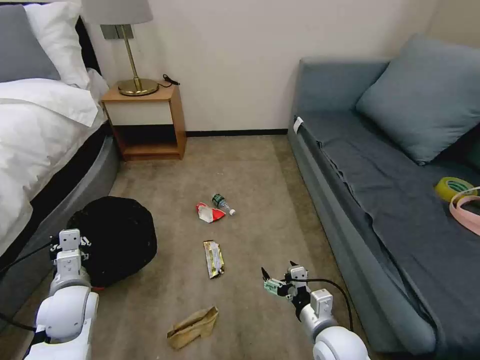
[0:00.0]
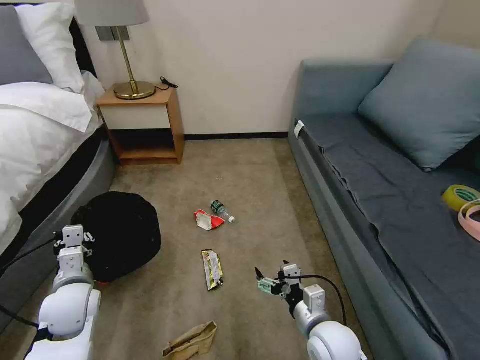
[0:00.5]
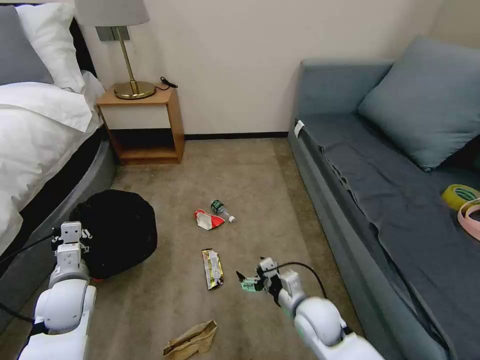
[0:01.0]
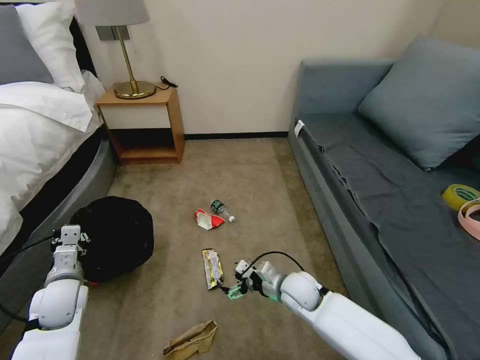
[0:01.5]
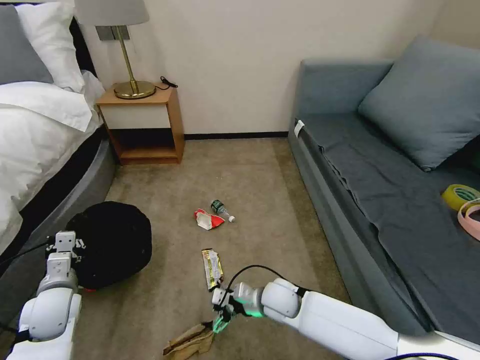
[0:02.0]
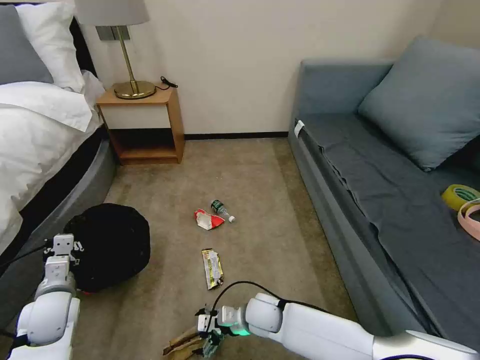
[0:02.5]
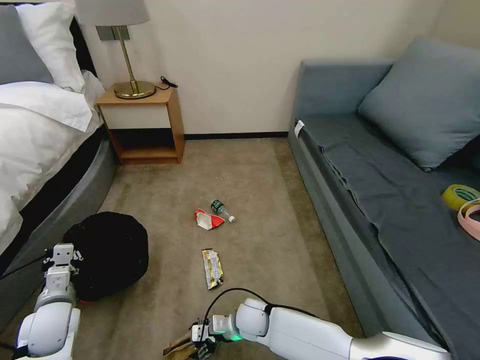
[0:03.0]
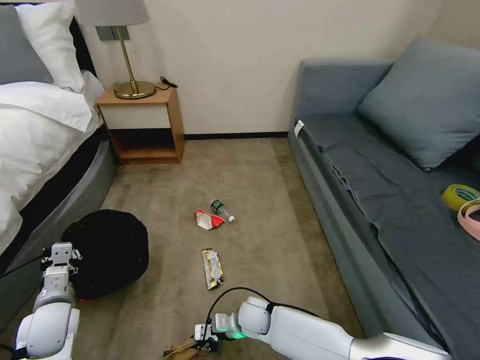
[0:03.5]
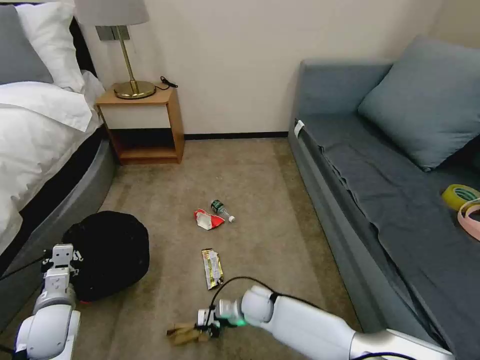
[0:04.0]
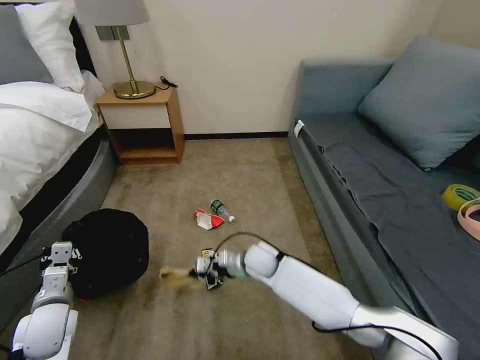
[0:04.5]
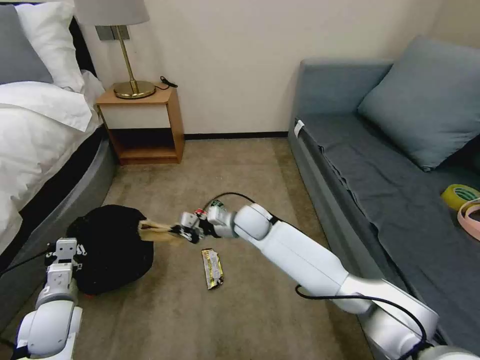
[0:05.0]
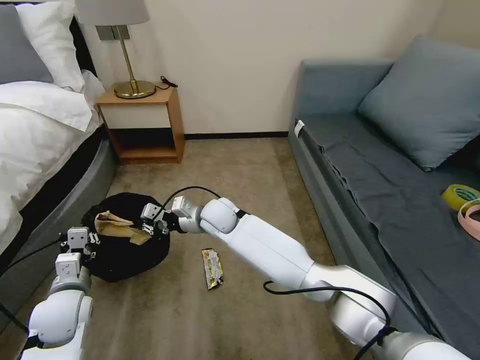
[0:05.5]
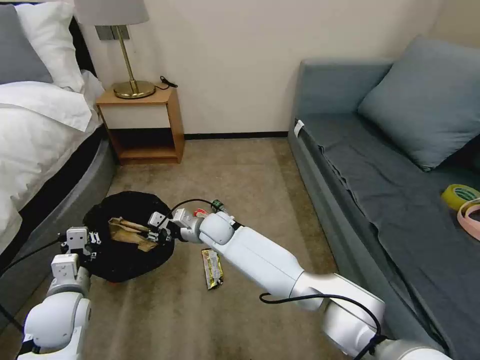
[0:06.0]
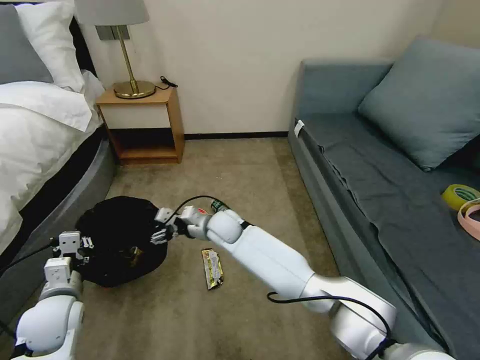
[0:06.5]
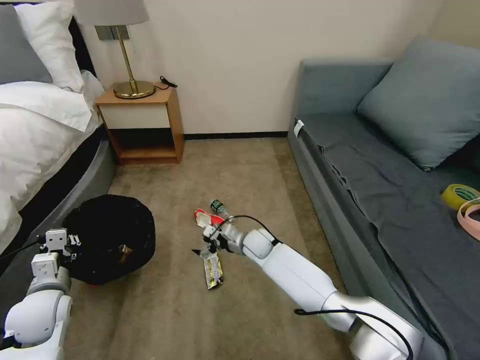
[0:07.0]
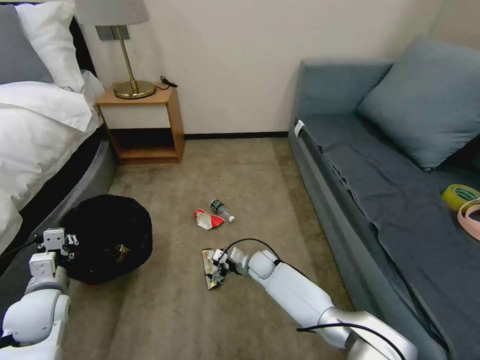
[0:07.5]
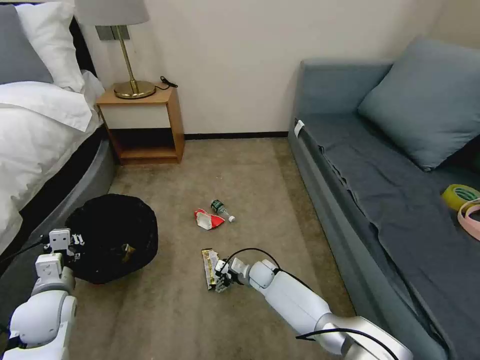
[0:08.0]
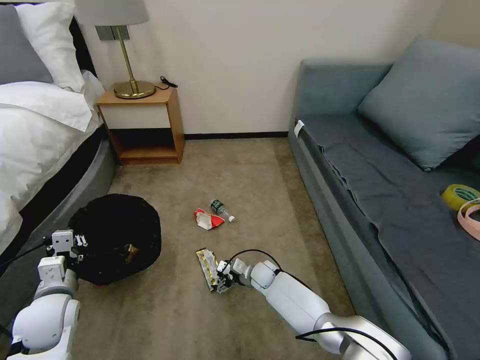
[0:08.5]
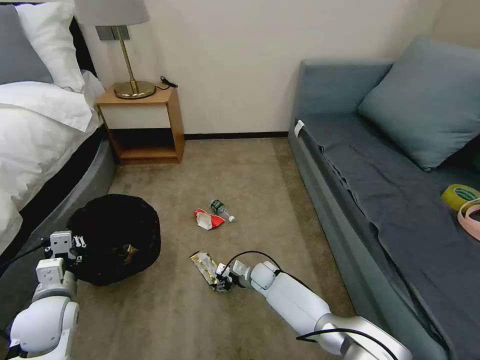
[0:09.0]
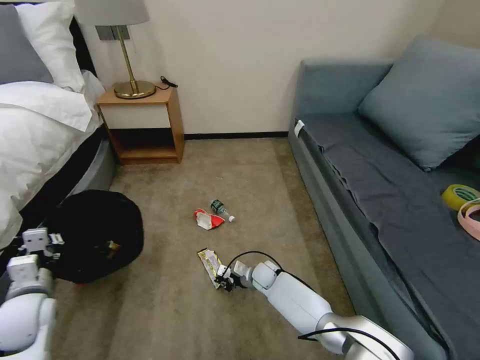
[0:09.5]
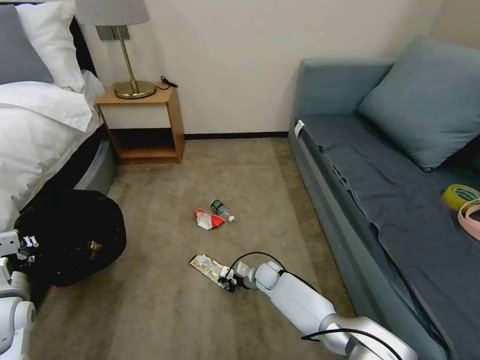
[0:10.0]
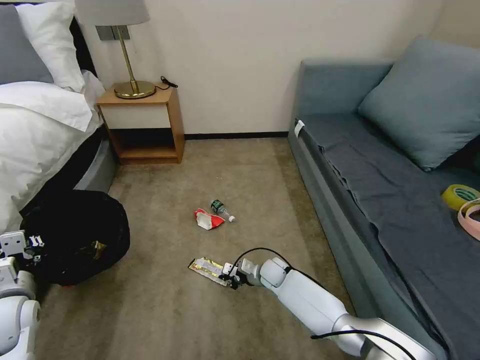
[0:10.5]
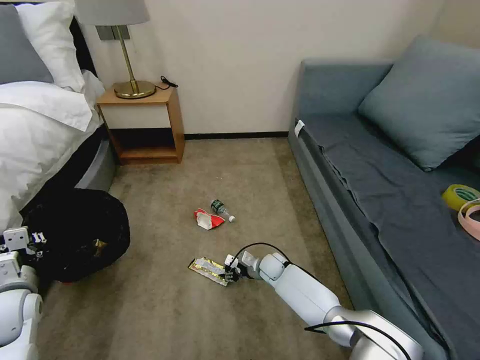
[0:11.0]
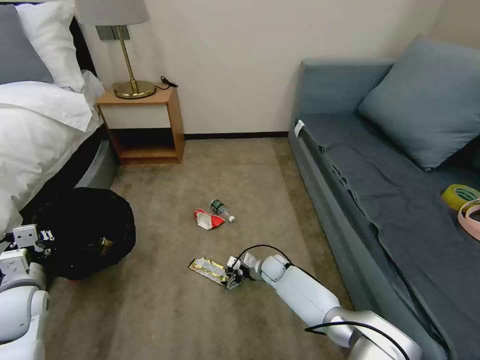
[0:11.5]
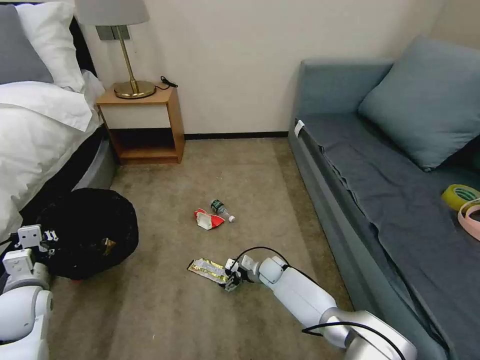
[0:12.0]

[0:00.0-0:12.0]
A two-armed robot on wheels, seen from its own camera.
Task of the whole recording: Pick up the trash bin, then pick up the garbage on the floor and place it into the trash bin.
0:00.0 to 0:02.0: The left gripper moves roughly 5 cm; the right gripper is displaced forward, to the left and downward by approximately 15 cm.
0:02.0 to 0:04.0: The right gripper travels downward by approximately 5 cm, and closes its fingers.
0:04.0 to 0:06.0: The left gripper moves approximately 5 cm; the right gripper shifts roughly 25 cm upward, forward and to the left.
0:06.0 to 0:08.0: The right gripper goes some 25 cm downward and to the right, and opens.
0:08.0 to 0:10.0: The left gripper moves to the left, some 5 cm; the right gripper closes its fingers.
0:10.0 to 0:12.0: The right gripper opens.

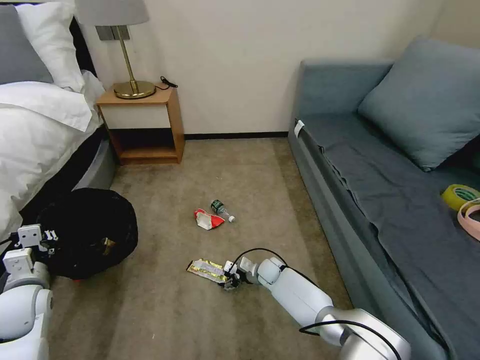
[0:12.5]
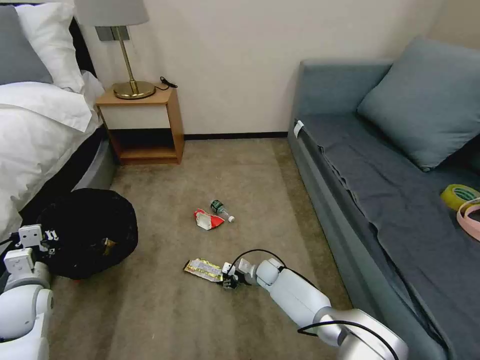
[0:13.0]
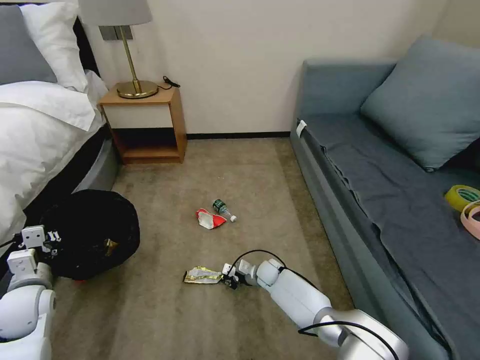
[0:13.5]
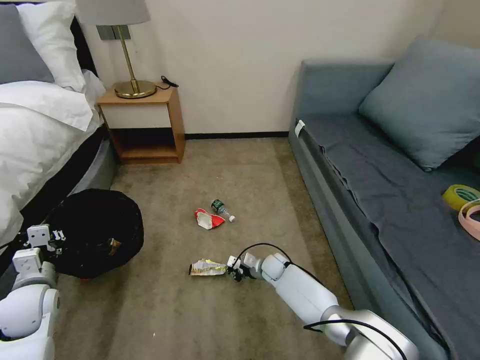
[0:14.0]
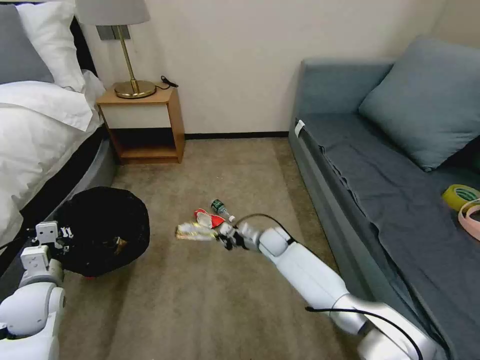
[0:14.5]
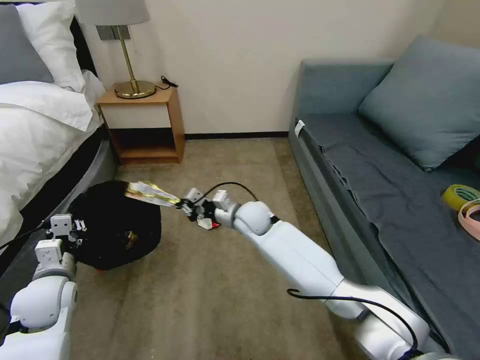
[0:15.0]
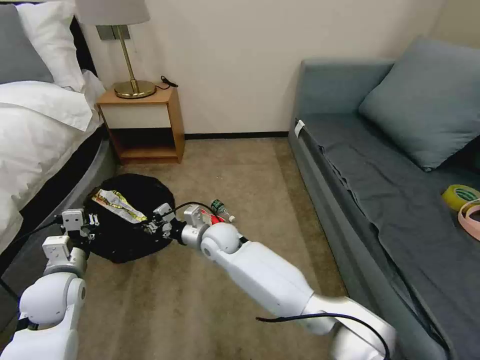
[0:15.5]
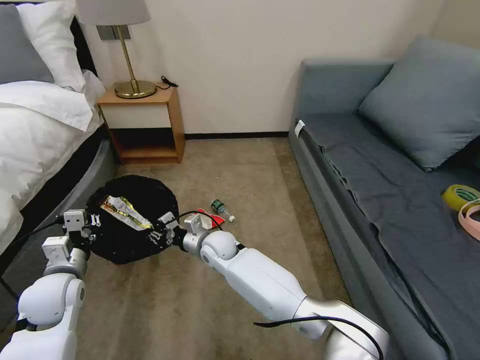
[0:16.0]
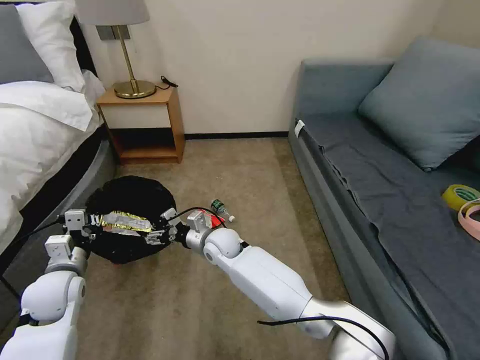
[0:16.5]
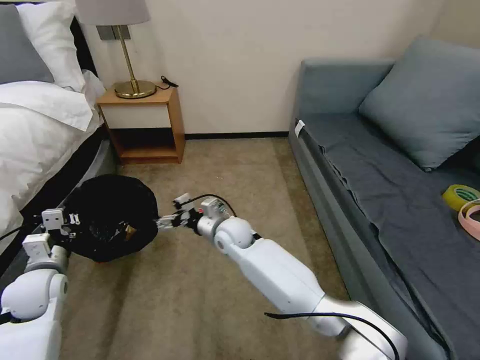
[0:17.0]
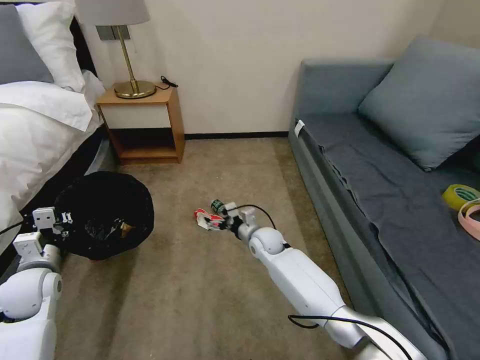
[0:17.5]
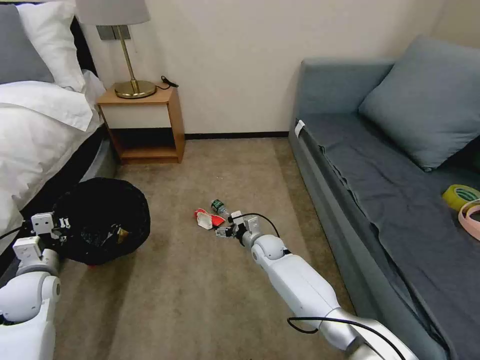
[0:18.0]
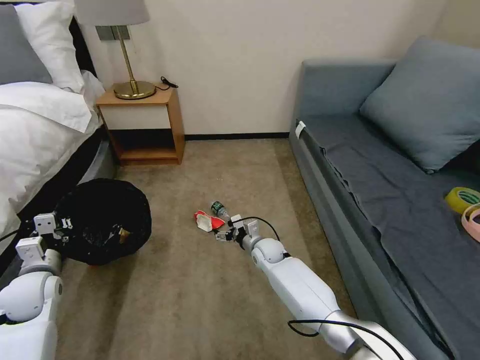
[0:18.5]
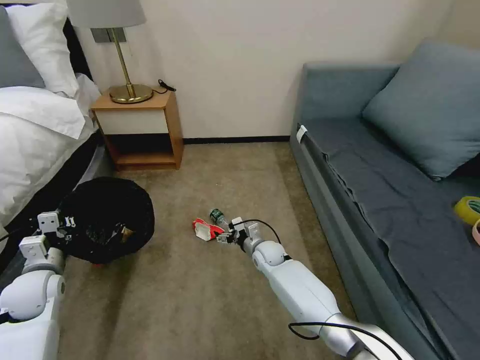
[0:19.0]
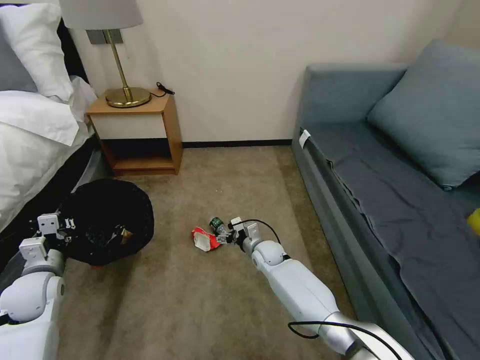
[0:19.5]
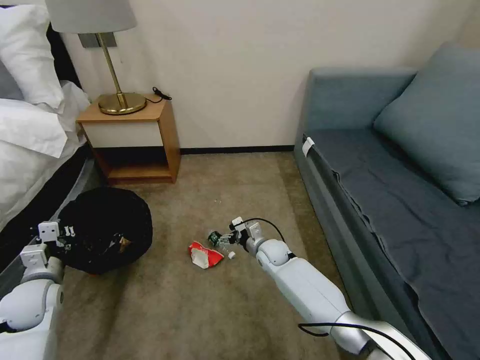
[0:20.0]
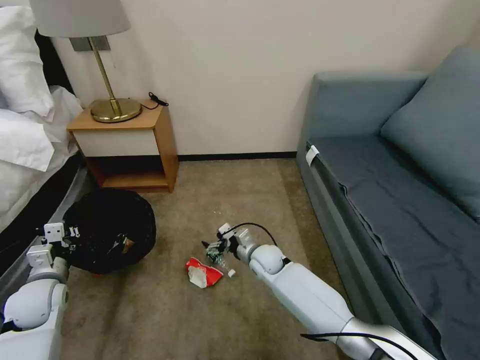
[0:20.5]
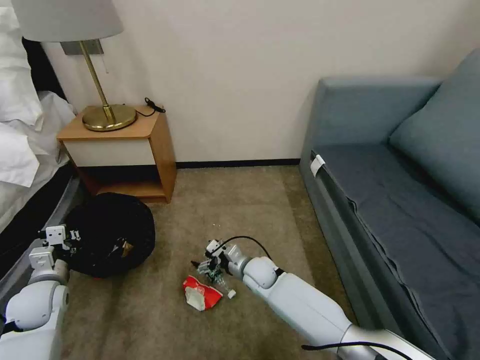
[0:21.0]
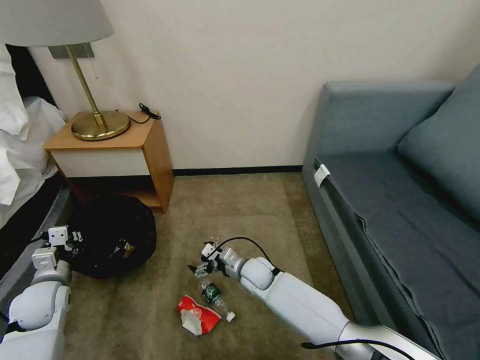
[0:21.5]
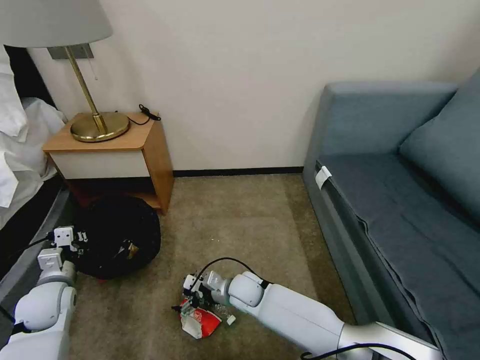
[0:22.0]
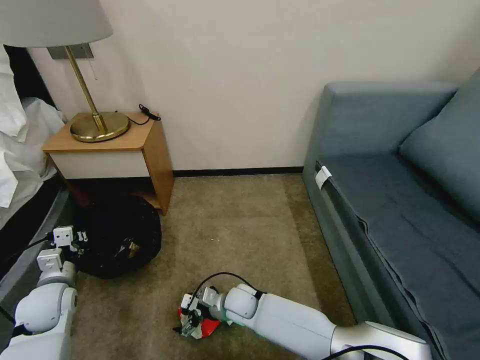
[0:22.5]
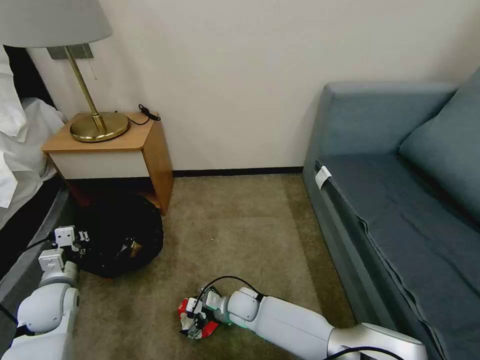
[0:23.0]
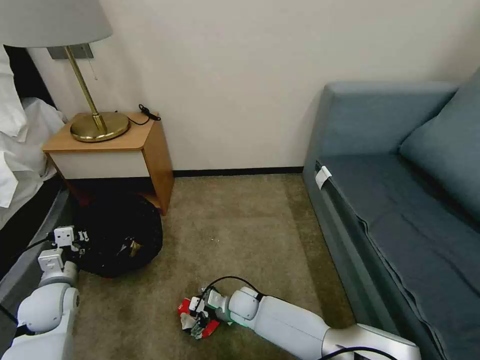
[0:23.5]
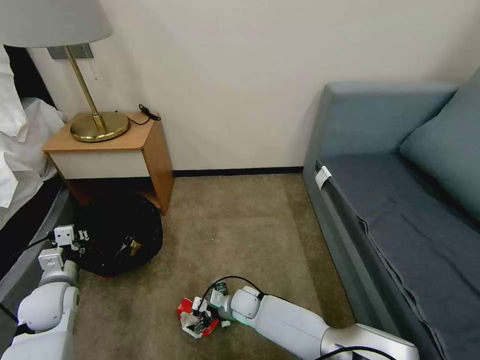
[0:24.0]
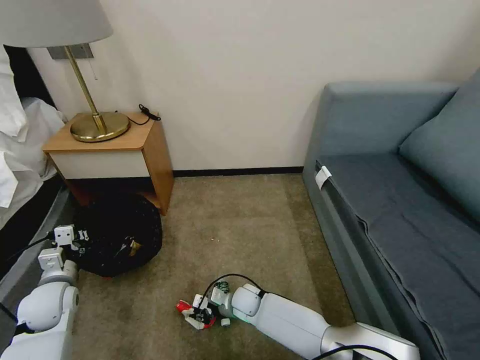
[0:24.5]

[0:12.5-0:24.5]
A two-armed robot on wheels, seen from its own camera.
Task of the whole recording: Pick up the trash bin, then pick up the garbage on the floor and place it into the trash bin.
0:12.5 to 0:14.5: The right gripper is displaced upward by approximately 10 cm, and closes up.
0:14.5 to 0:16.5: The right gripper goes roughly 20 cm to the left and upward, and opens.
0:16.5 to 0:18.5: The right gripper travels to the right and downward by roughly 15 cm. Meanwhile the left gripper goes roughly 5 cm to the left.
0:20.5 to 0:22.5: The right gripper shifts some 10 cm backward and to the left.
0:22.5 to 0:24.5: The right gripper travels downward by some 5 cm, and closes.

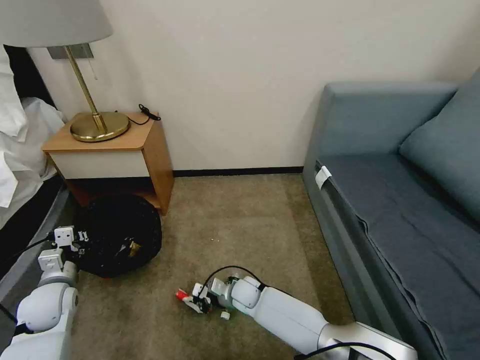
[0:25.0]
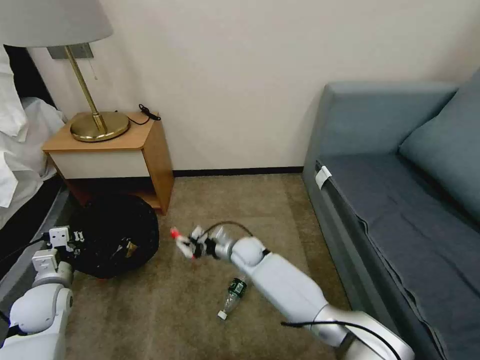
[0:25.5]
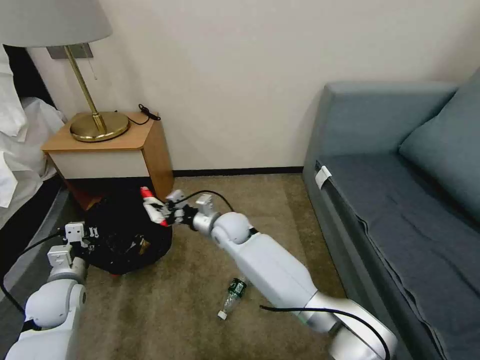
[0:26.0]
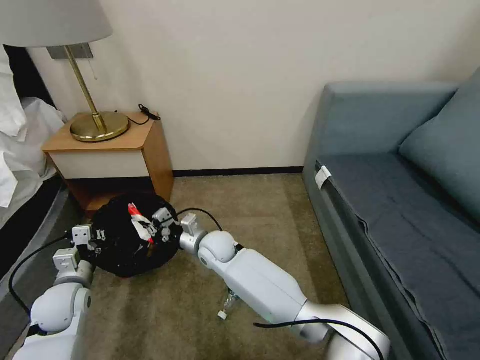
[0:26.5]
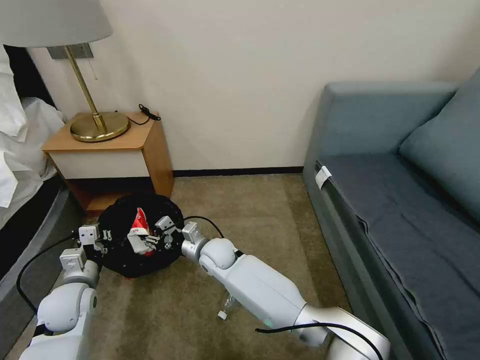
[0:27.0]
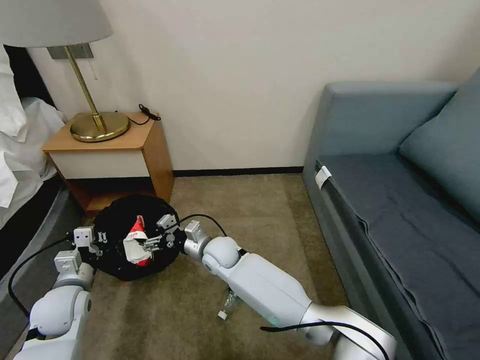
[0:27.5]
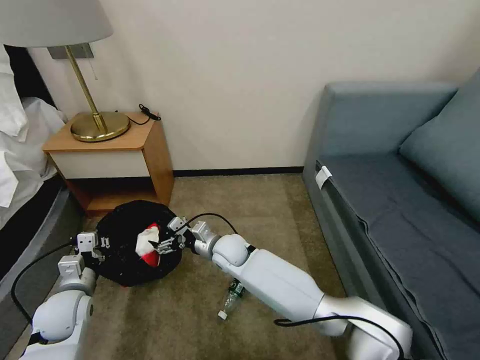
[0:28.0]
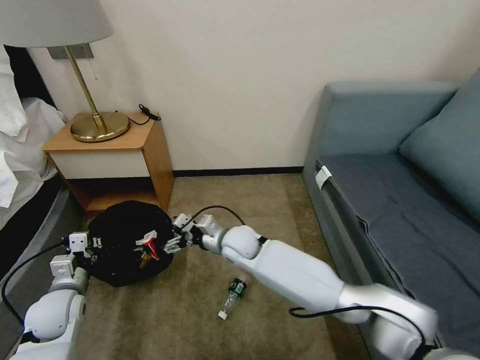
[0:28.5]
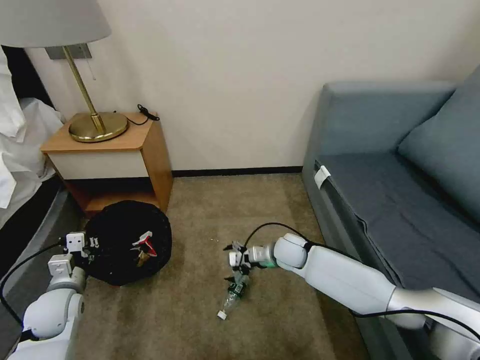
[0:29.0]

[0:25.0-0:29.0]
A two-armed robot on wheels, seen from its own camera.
Task of the whole recording: Pick up the trash bin, then pick up the garbage on the floor and place it into the trash bin.
0:25.0 to 0:27.0: The right gripper moves upward and to the left, some 15 cm, and opens.
0:27.0 to 0:29.0: The right gripper shifts roughly 20 cm to the right, and opens.
